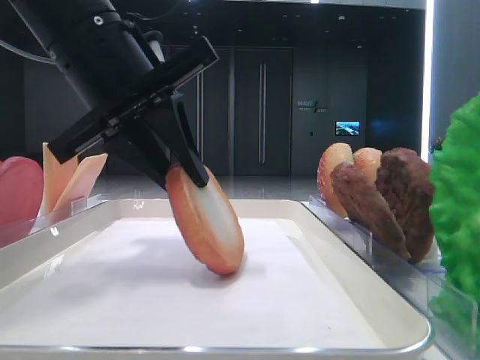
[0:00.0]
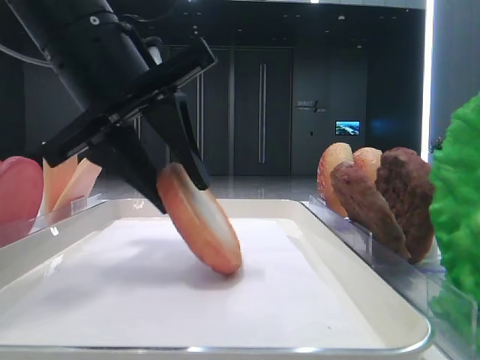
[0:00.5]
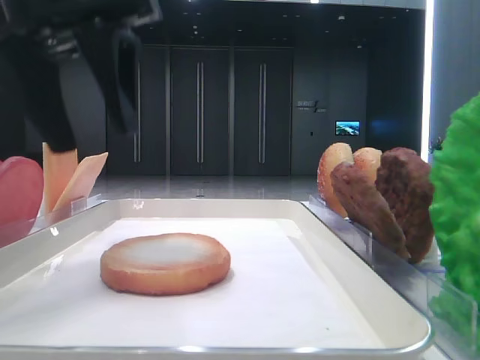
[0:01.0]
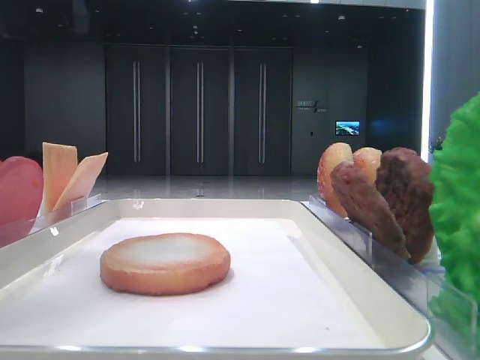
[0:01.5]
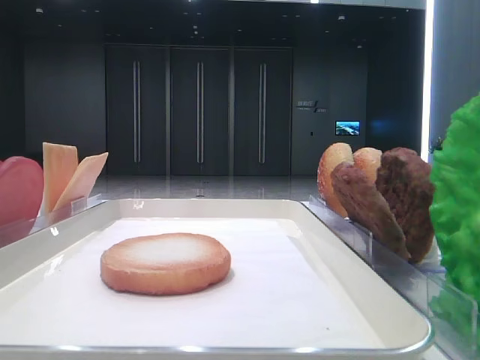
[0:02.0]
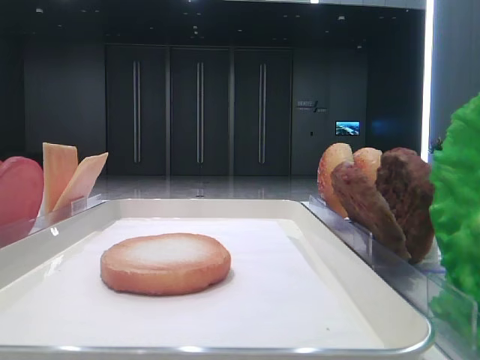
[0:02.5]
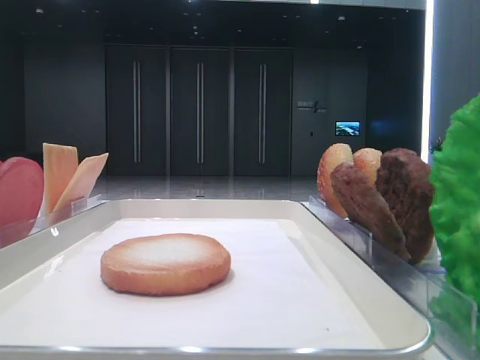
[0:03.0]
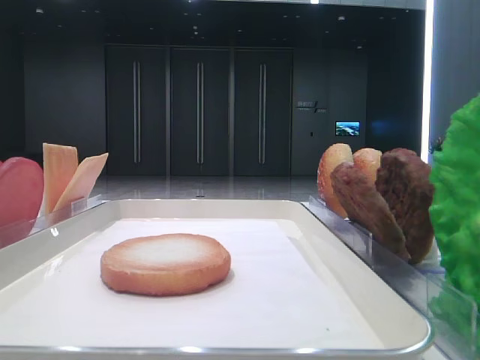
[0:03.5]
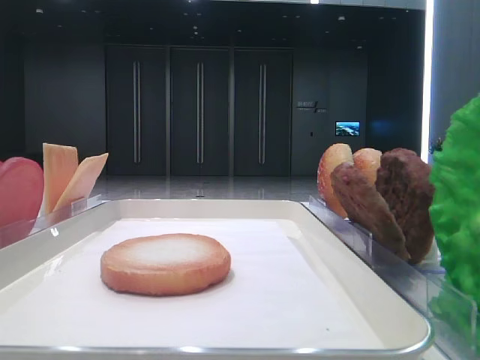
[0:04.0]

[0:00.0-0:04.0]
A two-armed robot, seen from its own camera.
0:00.0 to 0:02.0: The left gripper travels to the left and upward by approximately 25 cm, and opens.

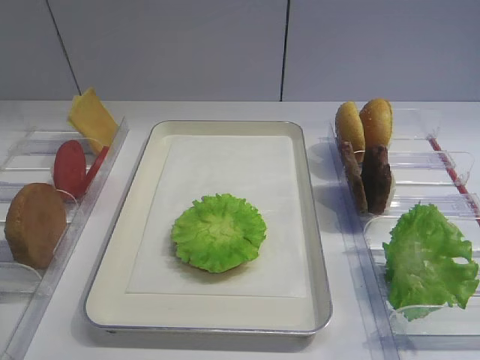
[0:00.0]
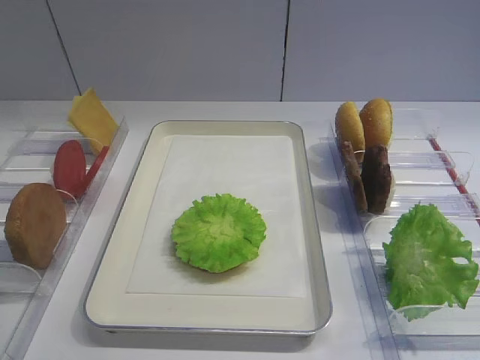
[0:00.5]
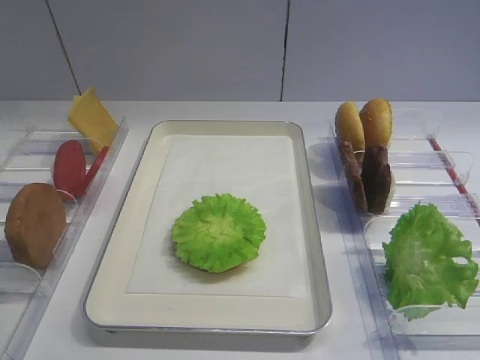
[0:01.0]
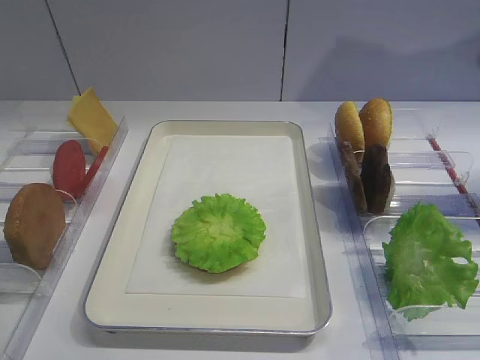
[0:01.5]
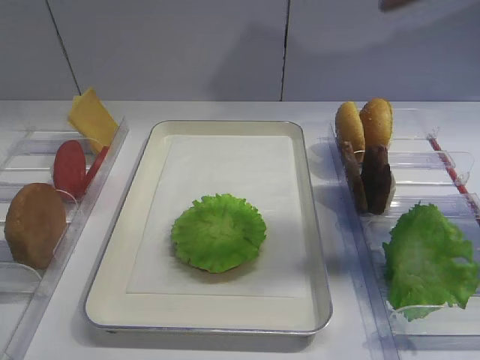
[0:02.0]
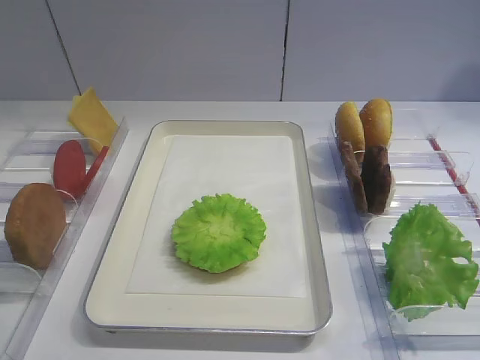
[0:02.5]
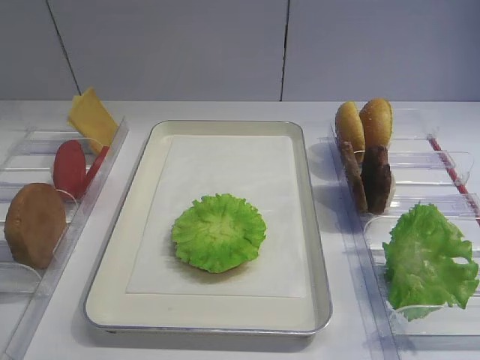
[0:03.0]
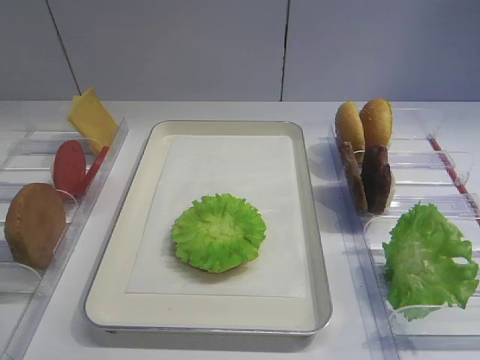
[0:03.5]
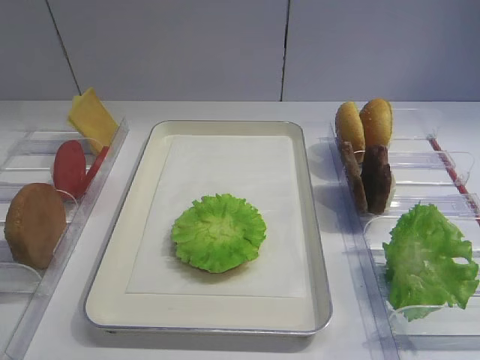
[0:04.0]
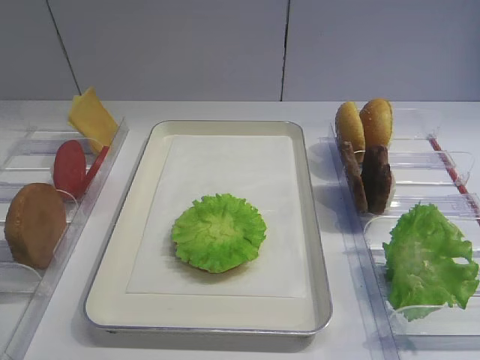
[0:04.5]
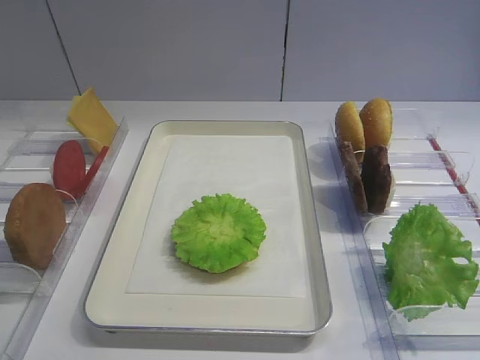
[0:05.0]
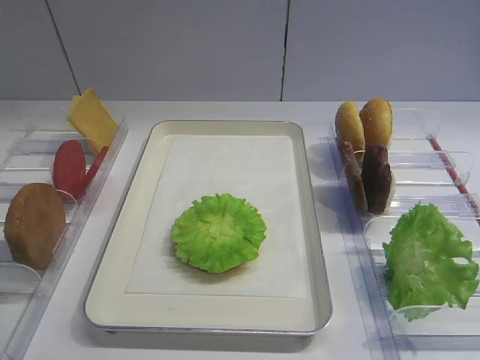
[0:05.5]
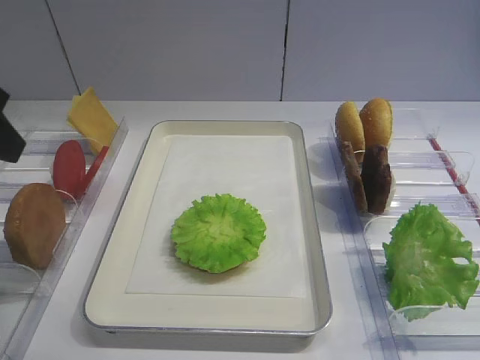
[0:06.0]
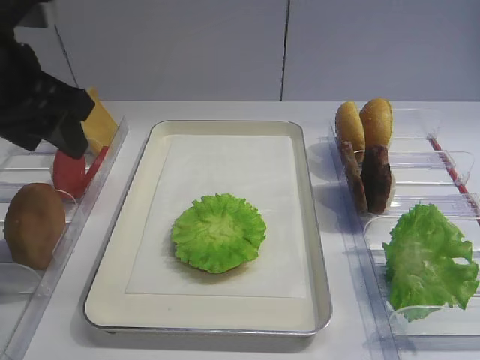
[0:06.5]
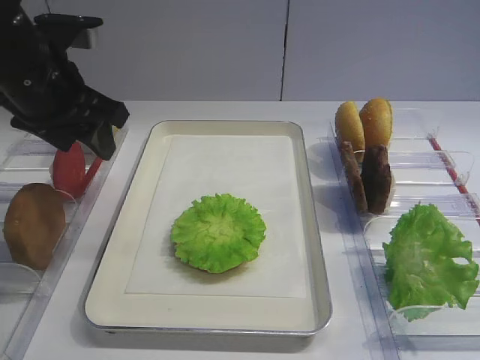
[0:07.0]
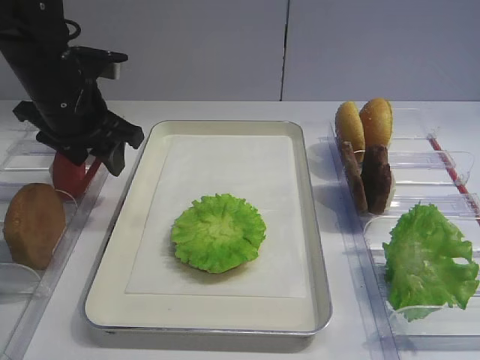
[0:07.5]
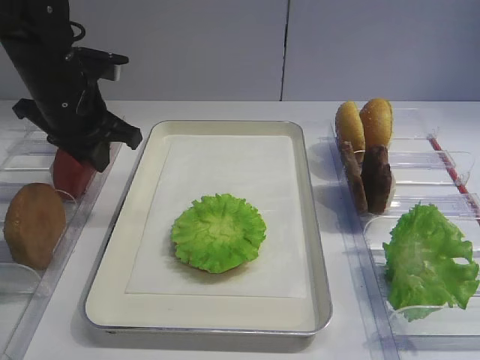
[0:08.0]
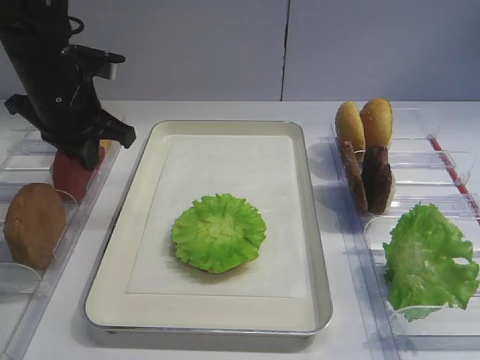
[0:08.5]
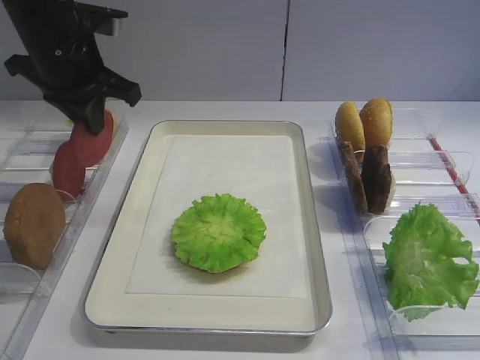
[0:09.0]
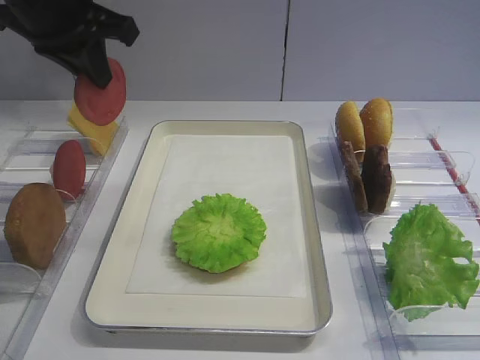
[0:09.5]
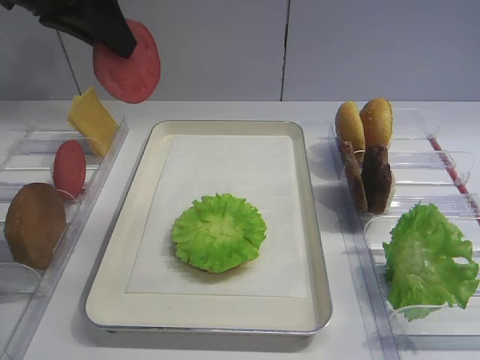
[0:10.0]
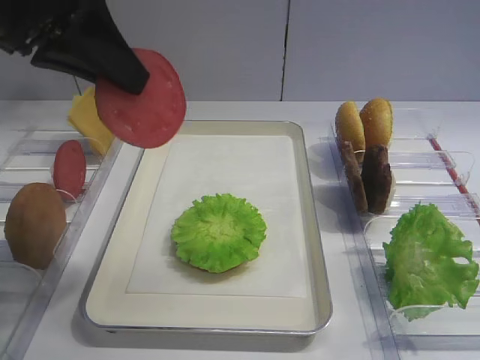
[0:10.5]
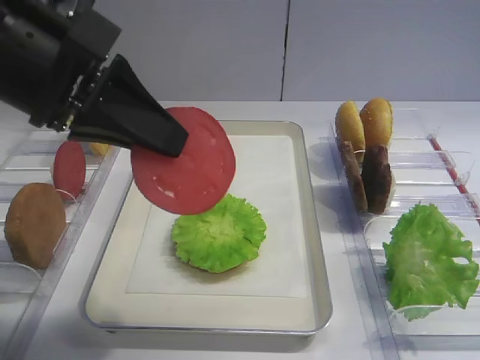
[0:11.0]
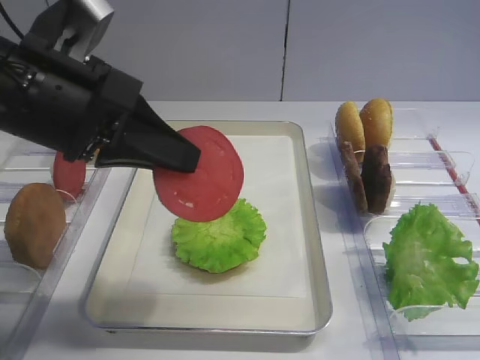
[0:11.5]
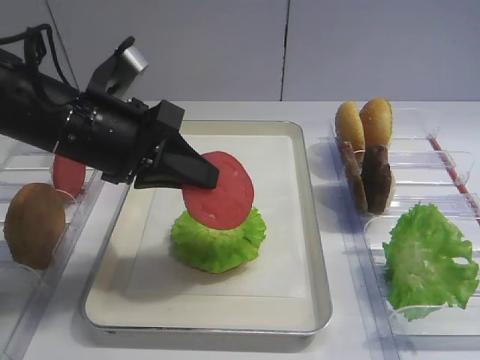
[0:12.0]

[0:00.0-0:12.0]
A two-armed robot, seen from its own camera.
Step, 0:00.0 to 0:08.5: Pick up the tomato slice with the left gripper.
0:02.0 to 0:04.0: There are only small adjustments of the grippers.
0:04.0 to 0:06.0: The left gripper shifts about 20 cm forward.
0:06.0 to 0:08.0: The left gripper shifts approximately 20 cm forward and downward, and closes up.
0:08.0 to 0:10.0: The left gripper moves upward, about 15 cm.
0:10.0 to 0:12.0: The left gripper goes roughly 15 cm downward.

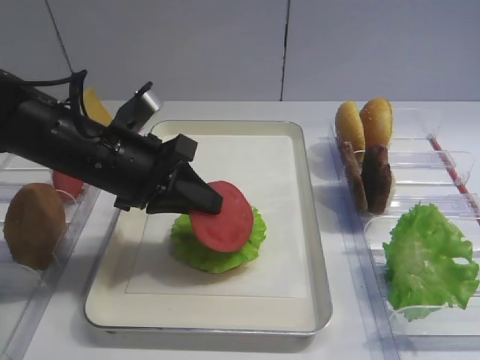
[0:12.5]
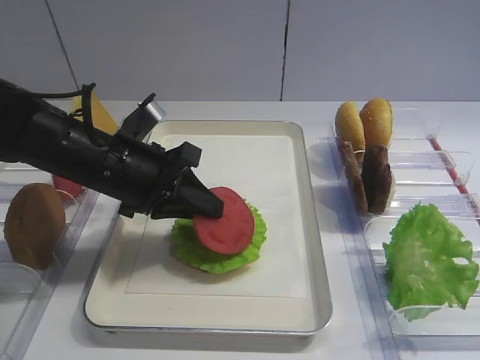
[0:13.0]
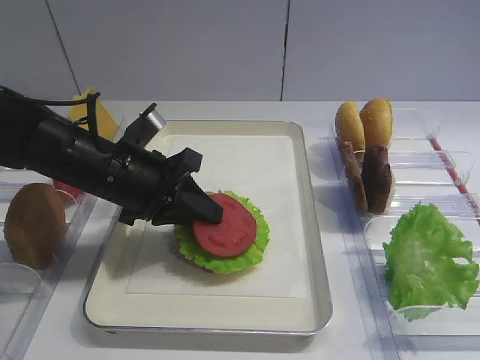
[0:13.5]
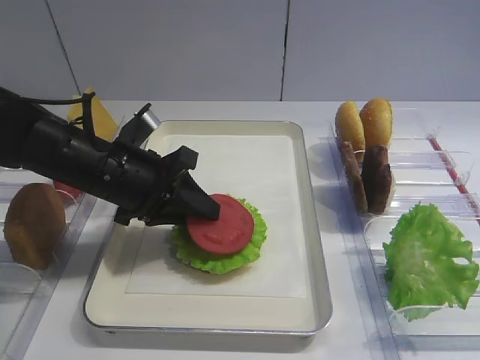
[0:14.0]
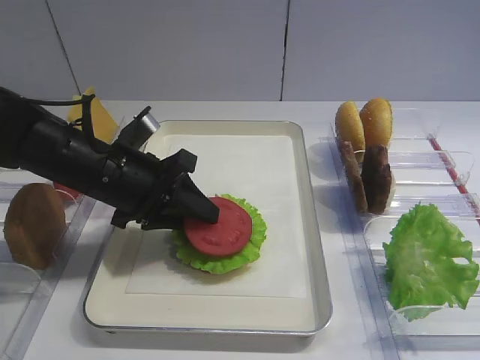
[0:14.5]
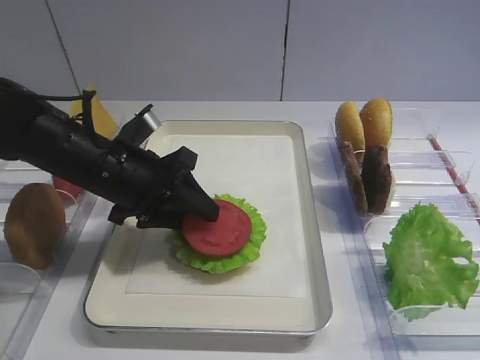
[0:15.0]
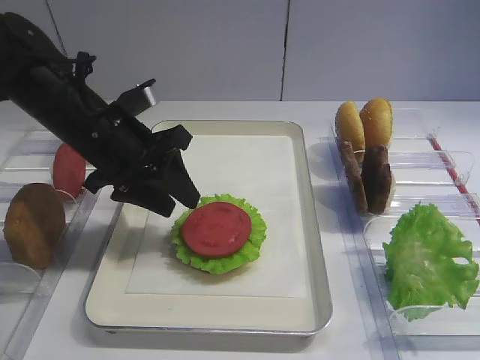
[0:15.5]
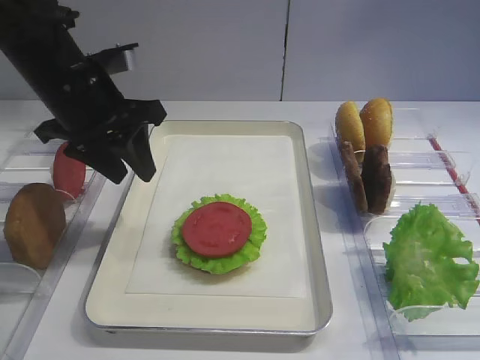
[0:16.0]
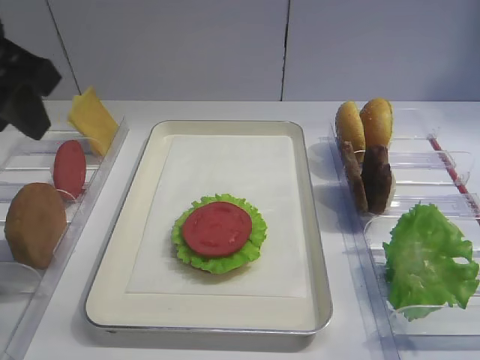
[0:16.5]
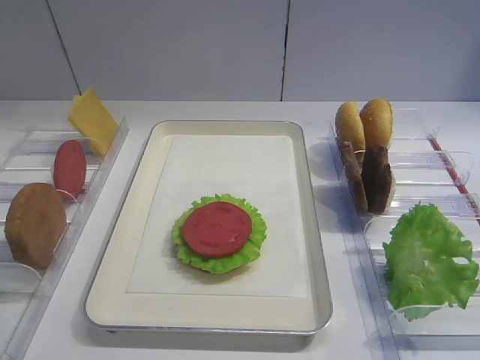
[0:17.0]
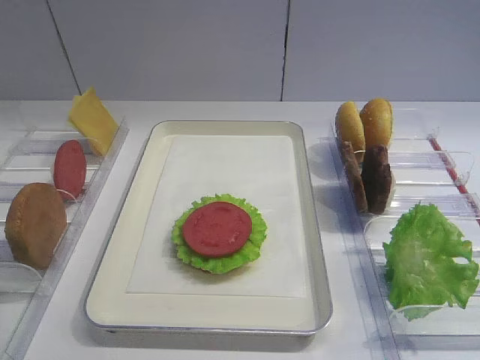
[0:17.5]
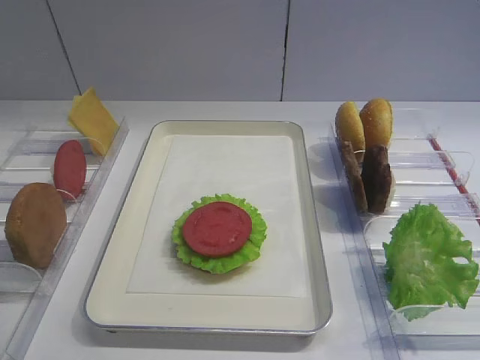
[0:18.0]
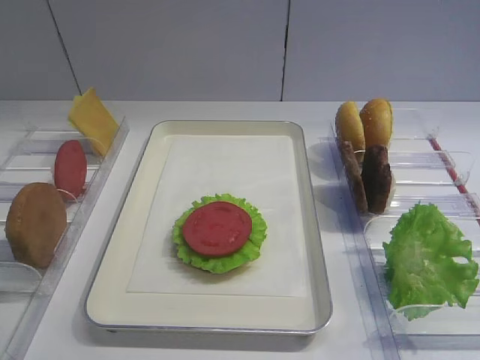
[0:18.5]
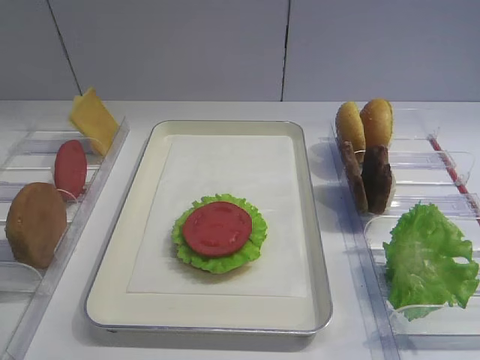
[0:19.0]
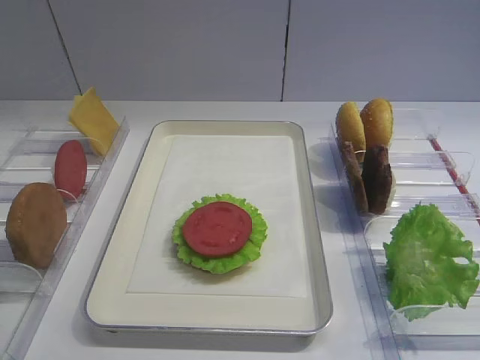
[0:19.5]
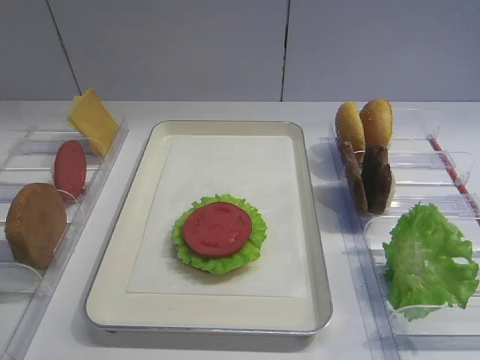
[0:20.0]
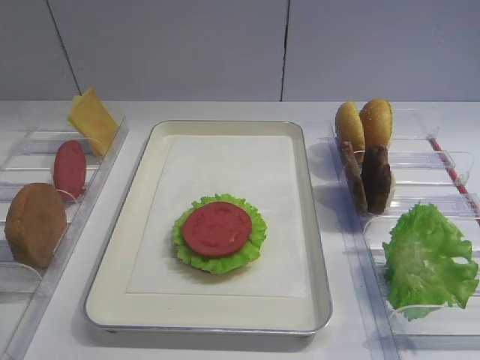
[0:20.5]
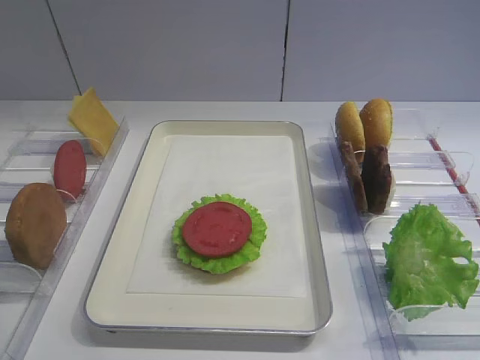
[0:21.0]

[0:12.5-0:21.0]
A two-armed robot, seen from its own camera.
Step, 0:12.5 to 0:15.0: Place the tomato slice on the lettuce leaf with the left gripper.
0:12.5 to 0:14.5: The left gripper opens up.
0:14.5 to 0:16.5: The left gripper shifts approximately 20 cm upward and to the left.
0:16.5 to 0:19.0: The left gripper goes about 25 cm backward.
